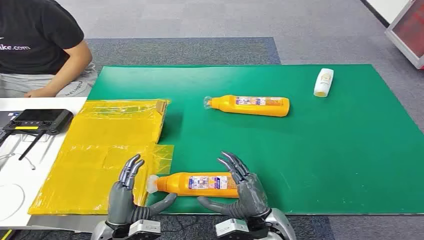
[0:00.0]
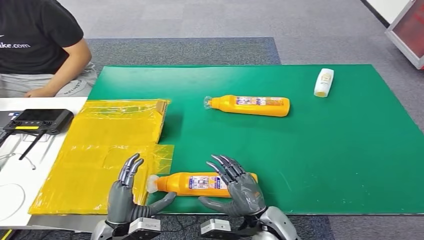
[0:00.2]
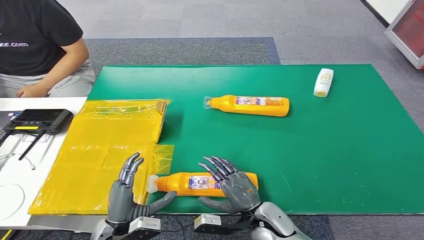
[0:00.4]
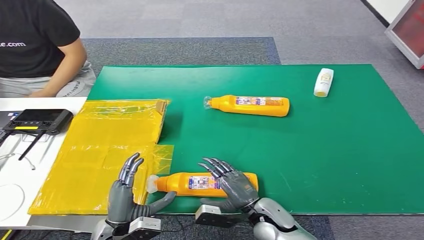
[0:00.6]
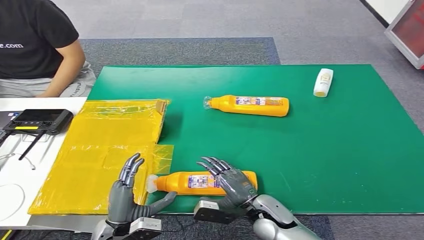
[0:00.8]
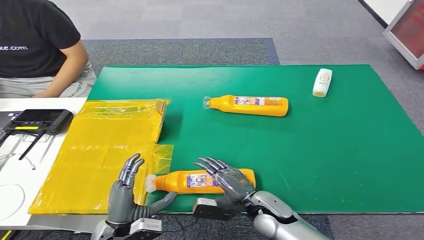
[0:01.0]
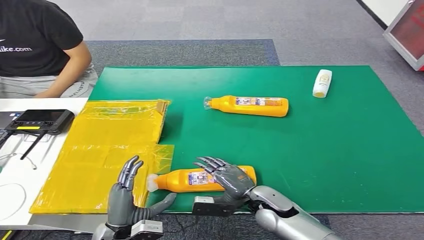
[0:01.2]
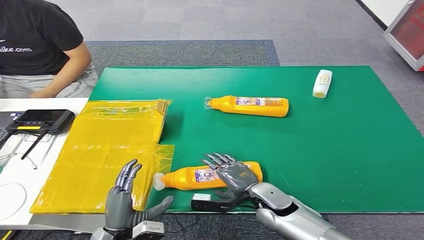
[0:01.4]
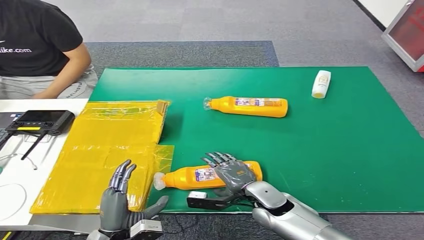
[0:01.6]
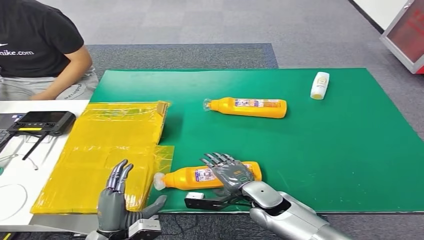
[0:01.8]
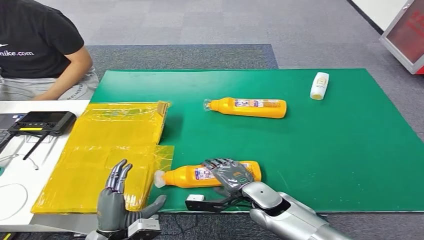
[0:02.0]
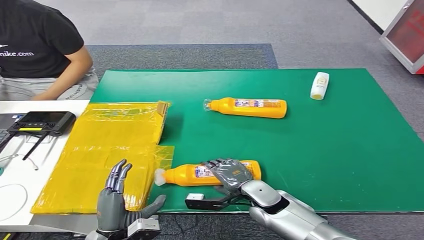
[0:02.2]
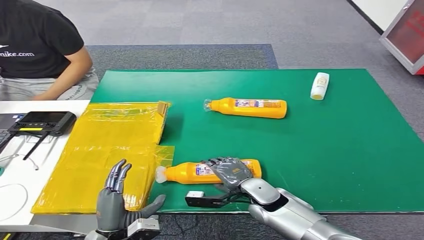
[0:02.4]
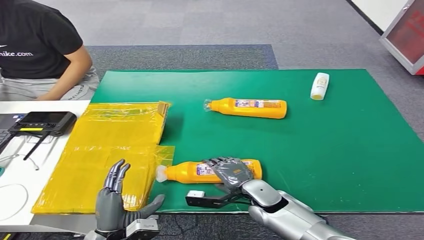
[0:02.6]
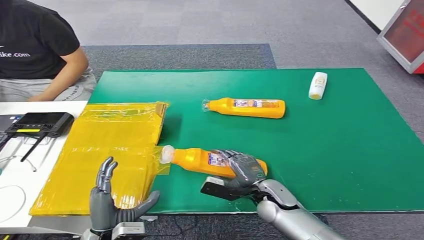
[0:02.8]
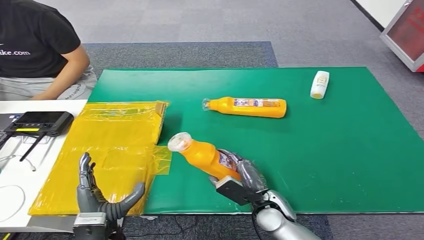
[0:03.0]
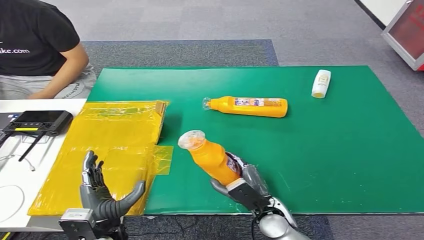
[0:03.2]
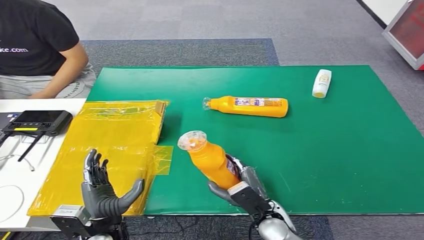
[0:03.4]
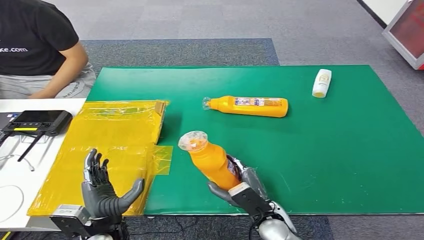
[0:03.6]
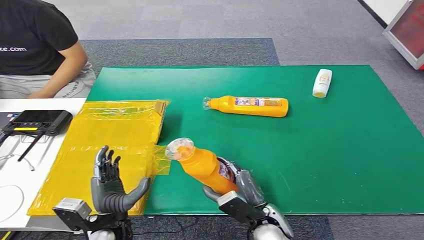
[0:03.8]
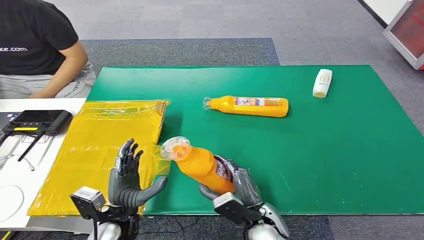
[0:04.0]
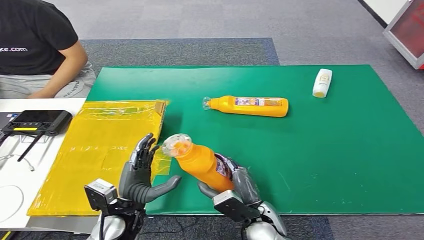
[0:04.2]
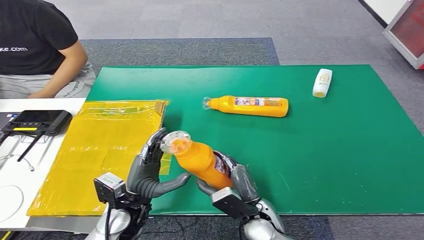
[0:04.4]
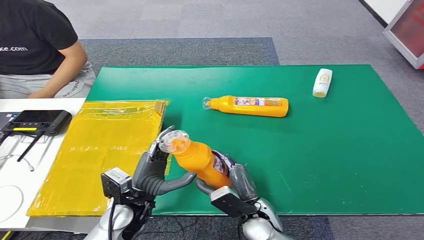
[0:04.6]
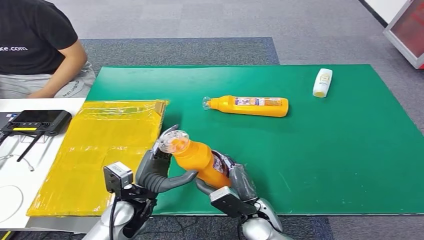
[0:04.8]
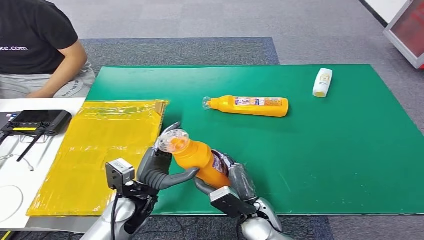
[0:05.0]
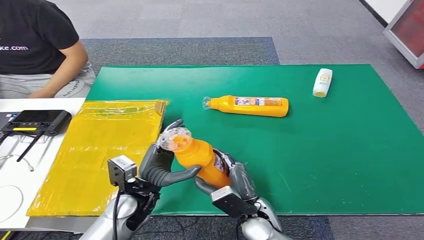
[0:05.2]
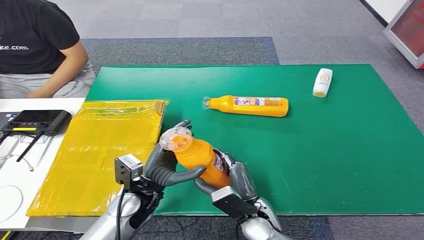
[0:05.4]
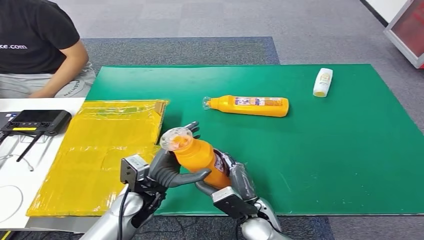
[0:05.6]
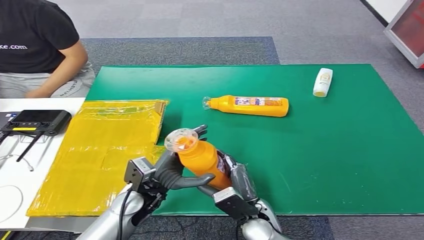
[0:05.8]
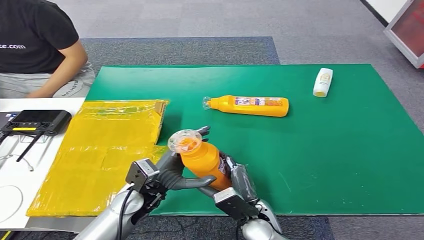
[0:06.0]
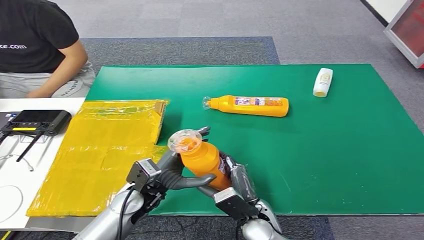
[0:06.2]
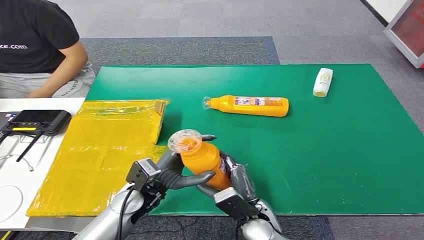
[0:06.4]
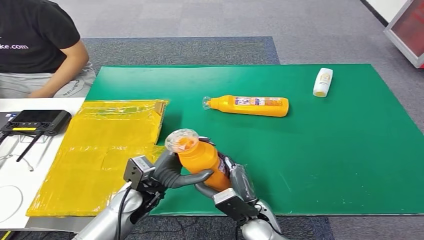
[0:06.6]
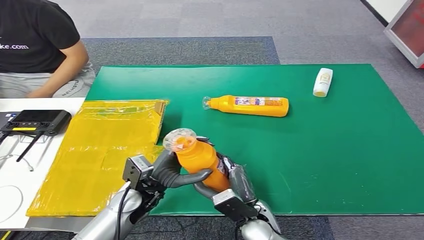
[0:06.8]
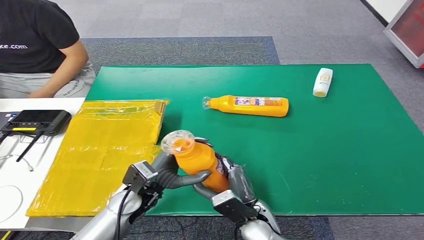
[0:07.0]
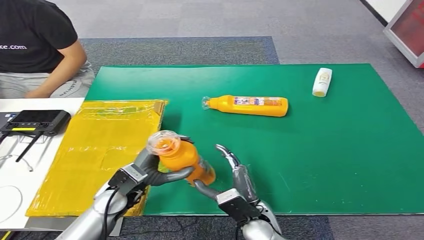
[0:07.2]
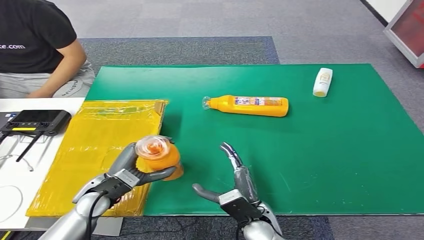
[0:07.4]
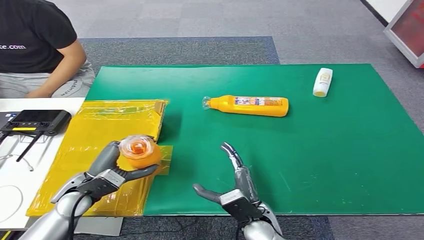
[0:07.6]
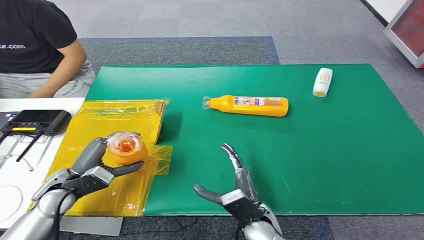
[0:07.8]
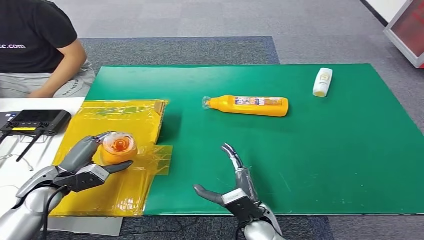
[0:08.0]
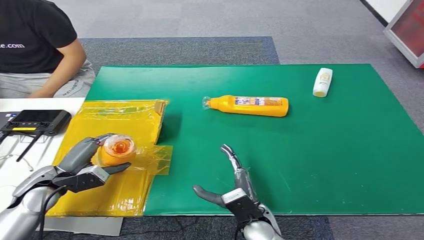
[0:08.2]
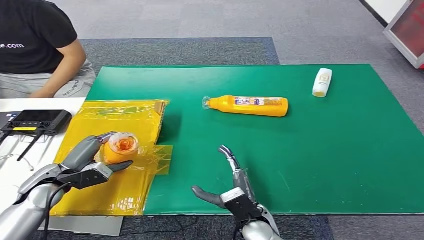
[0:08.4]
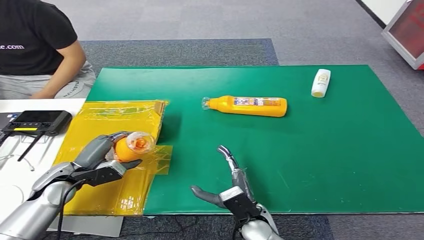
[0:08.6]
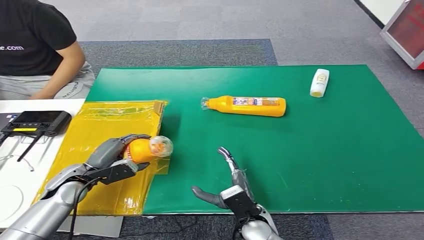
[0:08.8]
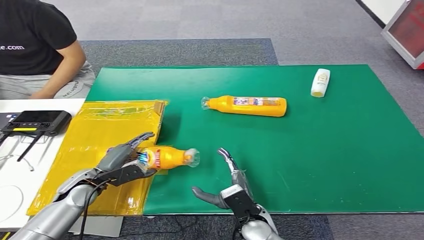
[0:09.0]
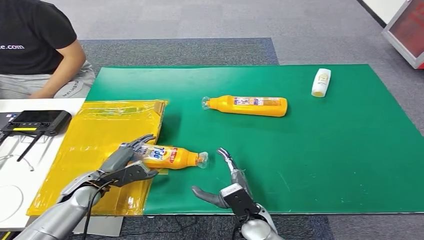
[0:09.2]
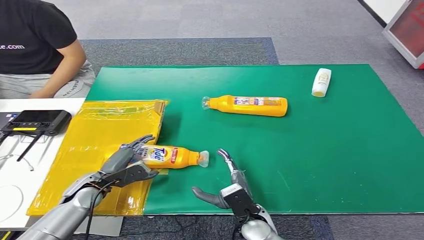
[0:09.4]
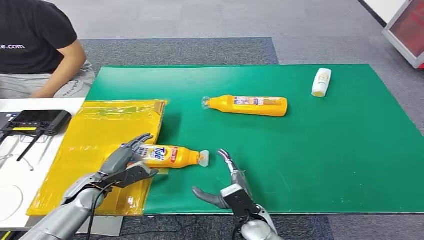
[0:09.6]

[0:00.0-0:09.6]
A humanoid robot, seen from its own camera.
Step, 0:00.0 to 0:03.4: Pick up the bottle from the table.
Step, 0:03.6 to 0:09.4: Turn the bottle to the front side.
0:03.2 to 0:04.8: The left hand goes about 5 cm forward.
0:04.8 to 0:06.4: The hands move only a little.
0:06.4 to 0:08.0: The left hand travels to the left by roughly 20 cm.
0:08.0 to 0:09.6: The left hand is displaced downward by roughly 10 cm.
